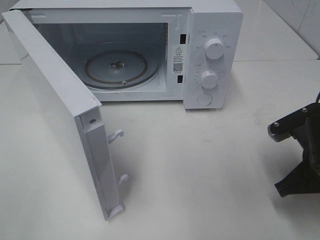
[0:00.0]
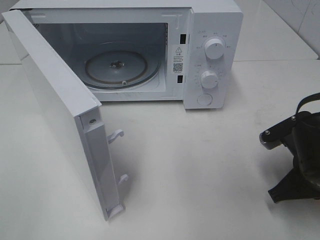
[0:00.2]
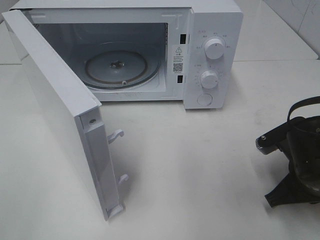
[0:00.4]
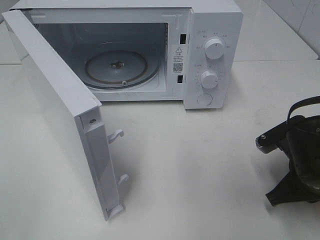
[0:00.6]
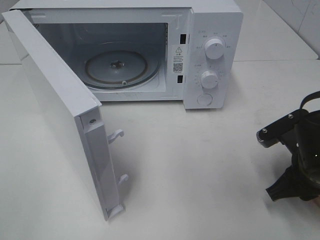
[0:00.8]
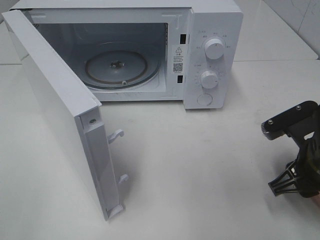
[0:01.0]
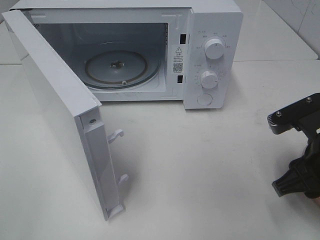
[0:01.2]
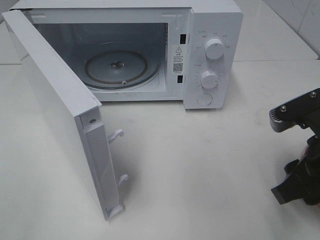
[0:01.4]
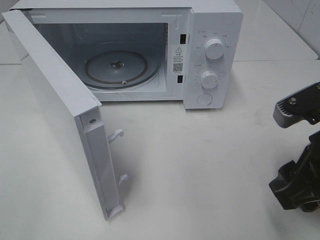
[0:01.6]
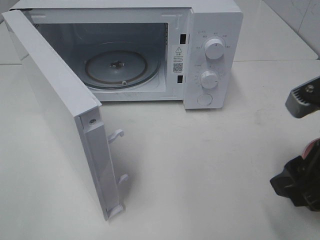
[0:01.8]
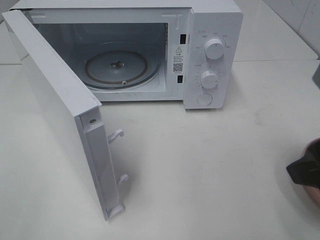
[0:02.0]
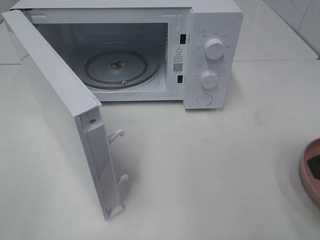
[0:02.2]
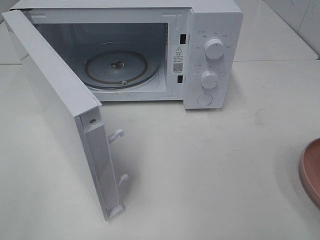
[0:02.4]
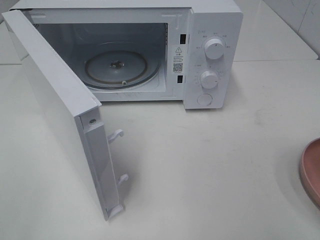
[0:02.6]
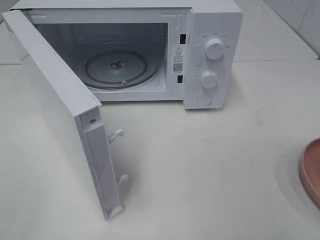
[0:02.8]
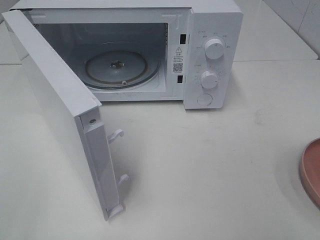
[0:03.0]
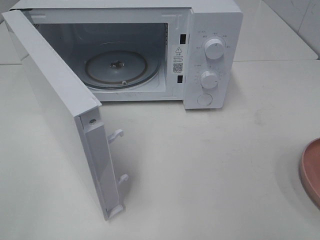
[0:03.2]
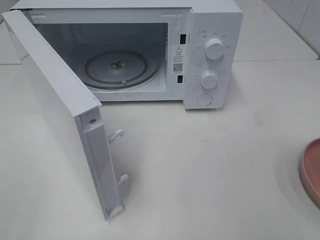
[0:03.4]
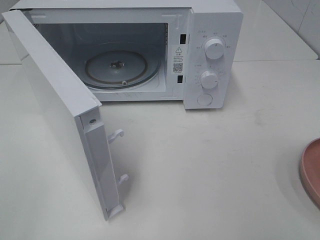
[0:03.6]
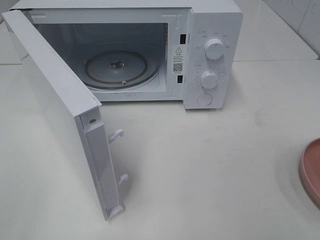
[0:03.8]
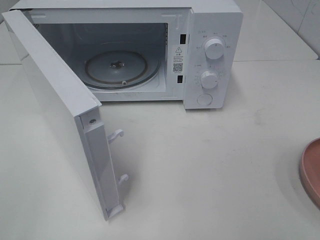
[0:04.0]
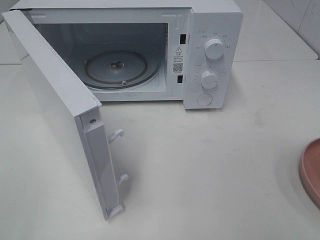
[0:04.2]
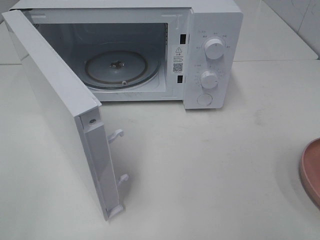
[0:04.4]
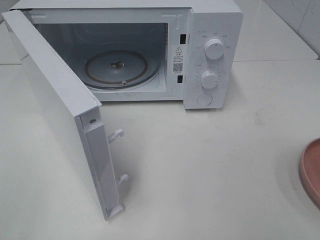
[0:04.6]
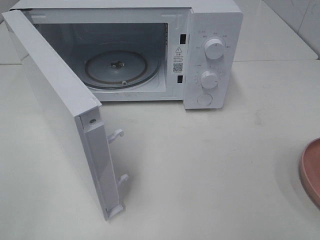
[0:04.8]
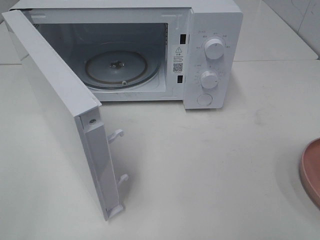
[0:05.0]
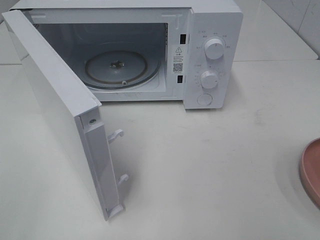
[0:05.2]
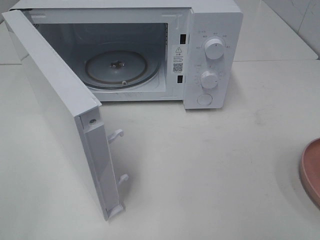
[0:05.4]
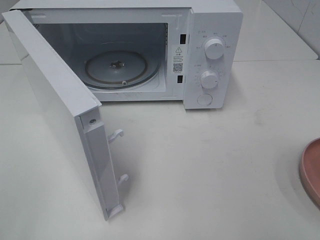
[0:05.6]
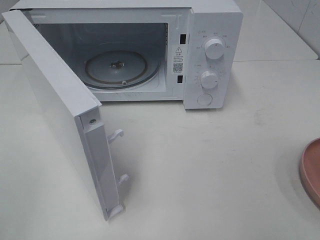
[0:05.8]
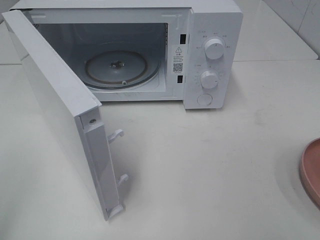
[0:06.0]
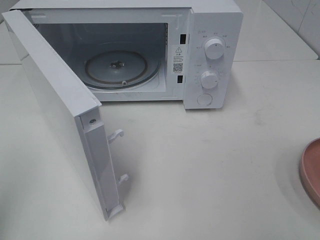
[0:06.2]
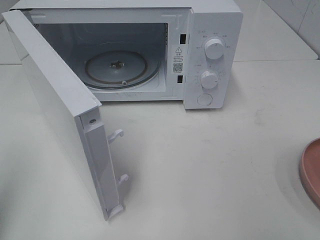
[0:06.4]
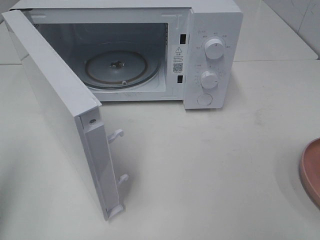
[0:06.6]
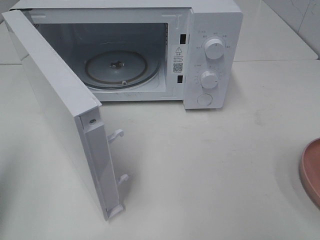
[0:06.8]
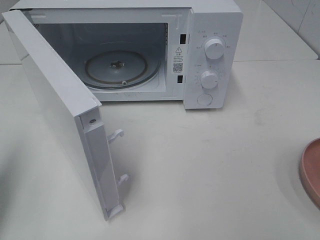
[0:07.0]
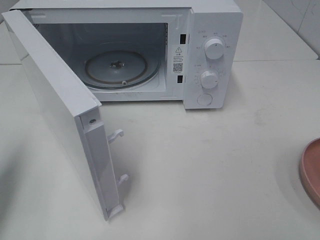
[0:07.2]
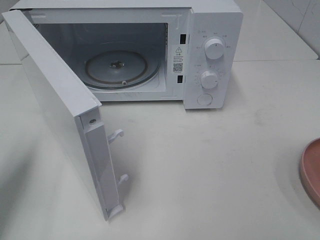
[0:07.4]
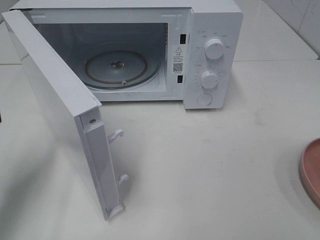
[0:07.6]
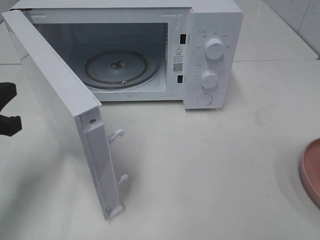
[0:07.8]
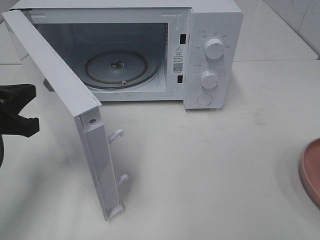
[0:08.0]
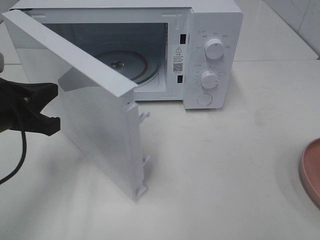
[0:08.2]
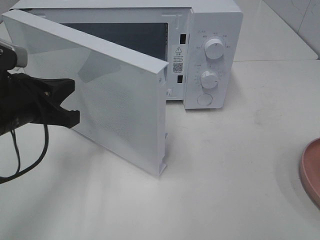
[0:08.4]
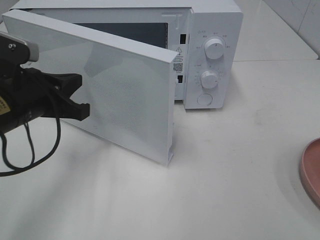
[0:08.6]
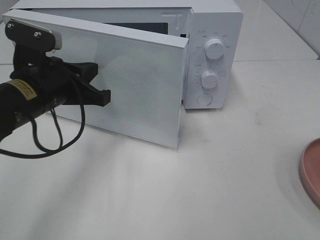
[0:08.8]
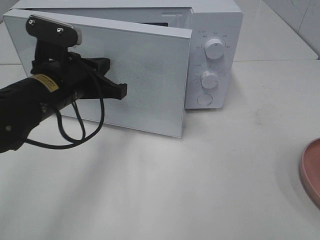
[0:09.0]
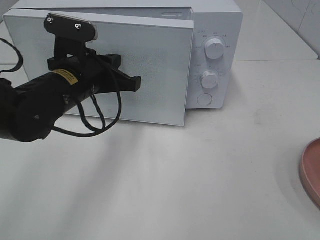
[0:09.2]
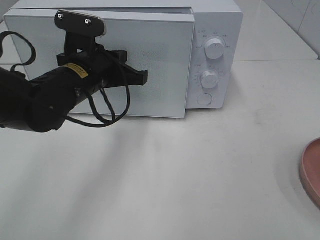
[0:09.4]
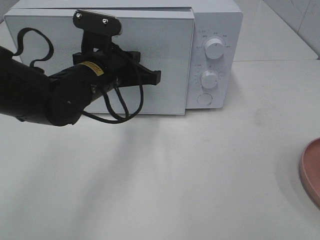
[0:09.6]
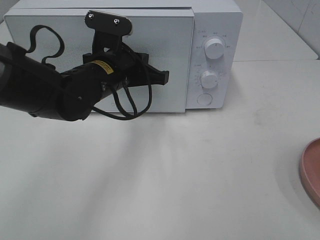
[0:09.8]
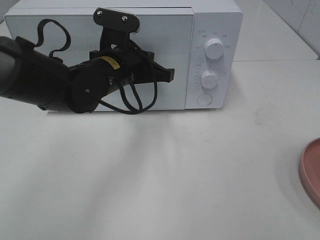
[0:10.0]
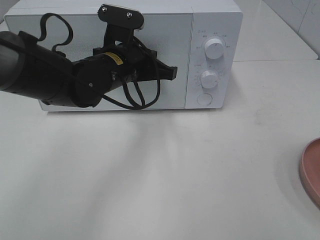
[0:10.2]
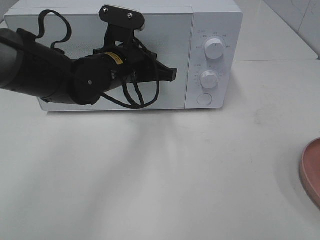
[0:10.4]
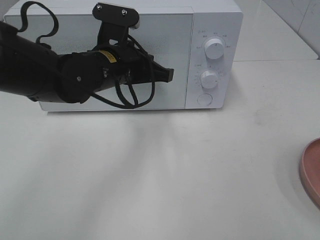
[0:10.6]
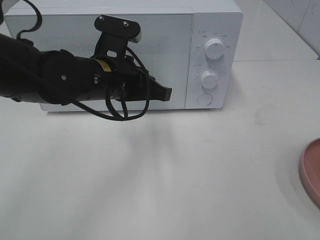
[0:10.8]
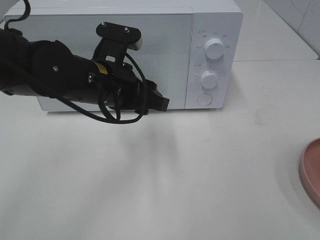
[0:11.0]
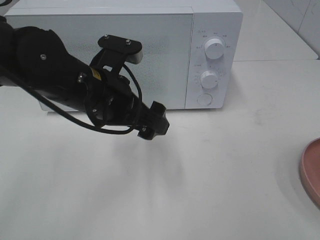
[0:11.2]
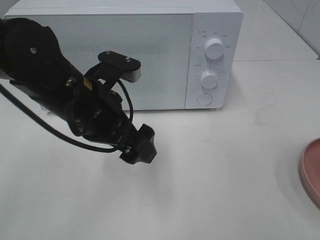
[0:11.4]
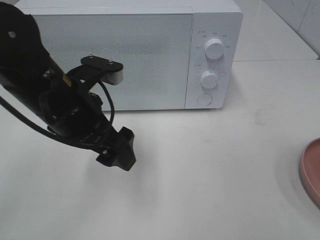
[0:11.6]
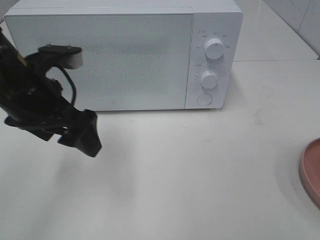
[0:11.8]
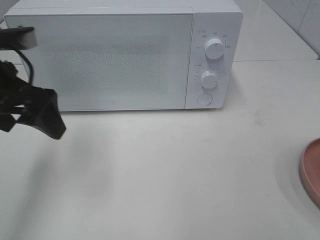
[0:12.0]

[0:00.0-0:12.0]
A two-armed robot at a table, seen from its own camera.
Task of the whole recording: Heat the burger.
Step, 1.2 to 11.0 s: Left hand: close the microwave door.
0.0 to 1.6 s: The right gripper heads upward, covering about 10 cm, and opens its fingers.
1.6 to 3.0 s: The right gripper moves backward, upward and to the right, approximately 15 cm.
6.0 to 7.6 s: The left gripper moves forward and downward, some 20 cm.
7.6 to 9.0 s: The left gripper travels to the right and forward by about 15 cm.
9.0 to 10.4 s: The left gripper moves to the right and forward, roughly 10 cm.
10.4 to 12.0 s: The left gripper goes roughly 20 cm to the left, backward and upward, and opens up.

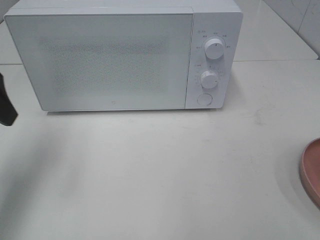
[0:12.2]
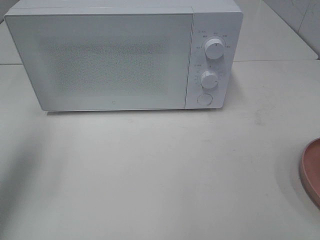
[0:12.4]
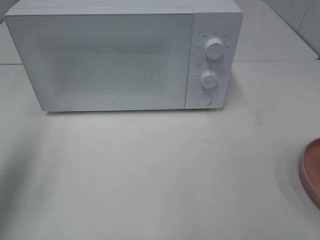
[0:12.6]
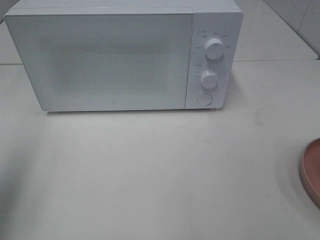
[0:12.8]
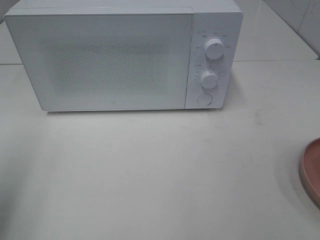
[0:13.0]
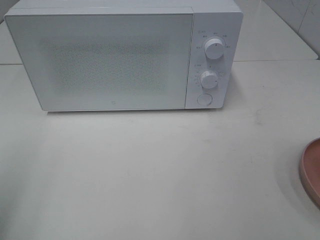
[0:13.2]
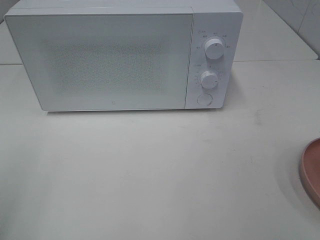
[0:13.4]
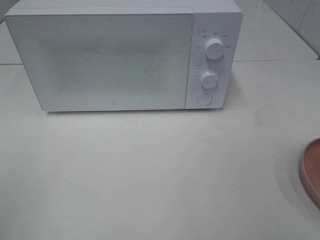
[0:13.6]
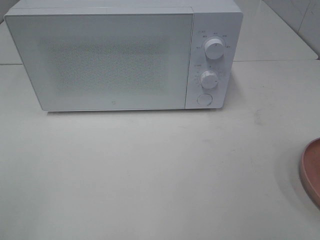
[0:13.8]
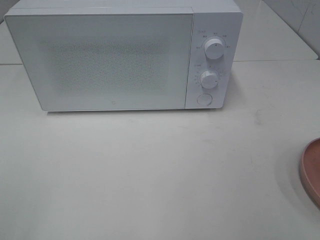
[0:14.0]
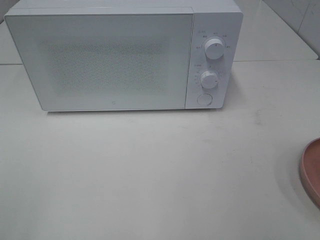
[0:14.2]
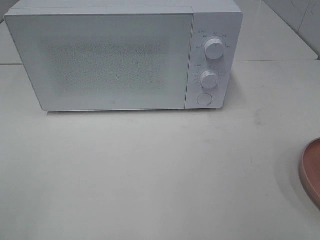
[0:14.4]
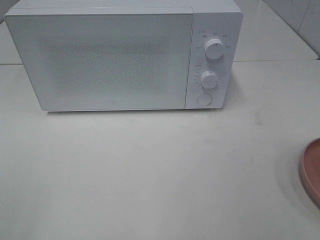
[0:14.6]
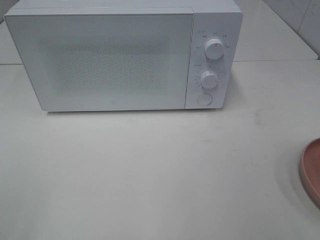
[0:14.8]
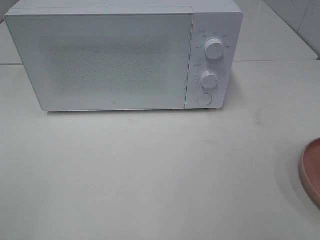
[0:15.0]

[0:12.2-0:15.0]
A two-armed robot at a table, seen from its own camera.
Task of the whole recording: Heat the burger.
12.2 to 13.6 s: The left gripper heads backward, covering roughly 20 cm.

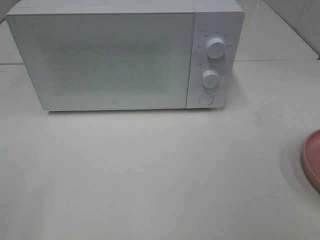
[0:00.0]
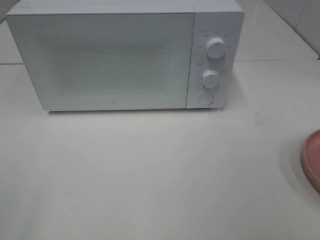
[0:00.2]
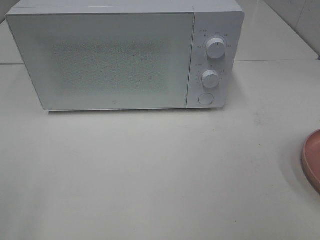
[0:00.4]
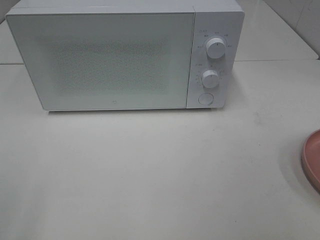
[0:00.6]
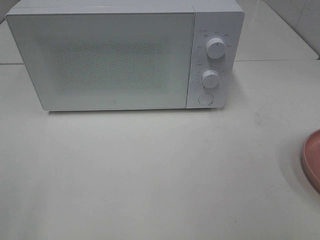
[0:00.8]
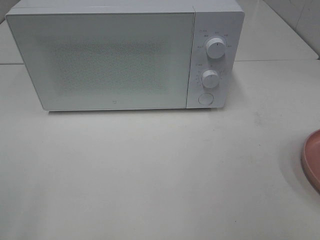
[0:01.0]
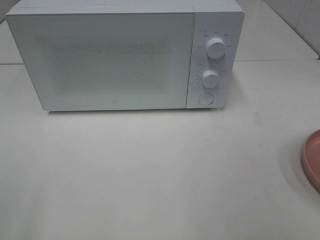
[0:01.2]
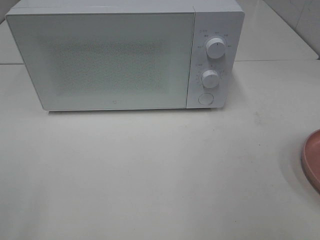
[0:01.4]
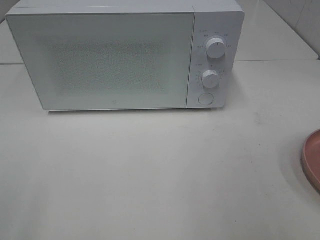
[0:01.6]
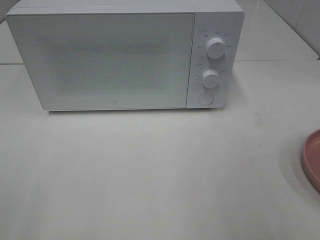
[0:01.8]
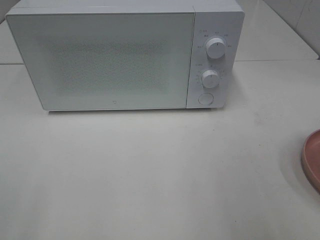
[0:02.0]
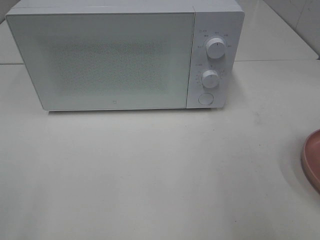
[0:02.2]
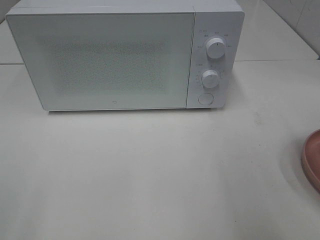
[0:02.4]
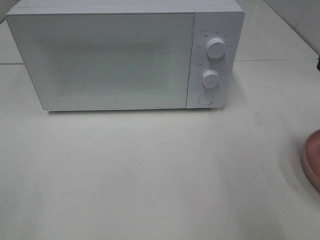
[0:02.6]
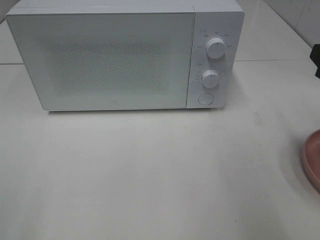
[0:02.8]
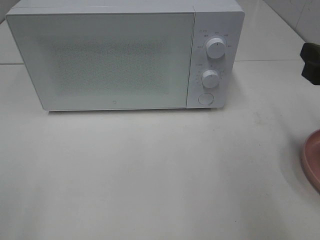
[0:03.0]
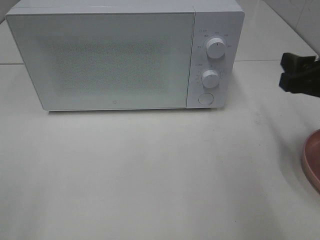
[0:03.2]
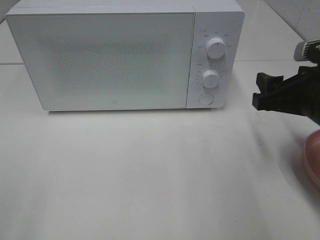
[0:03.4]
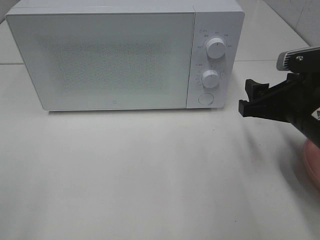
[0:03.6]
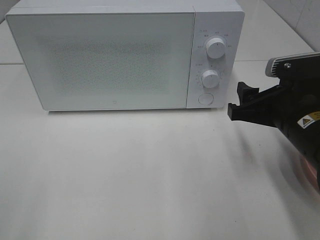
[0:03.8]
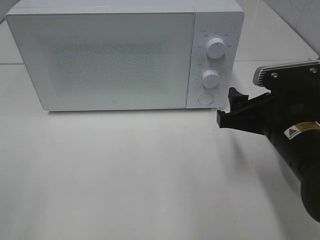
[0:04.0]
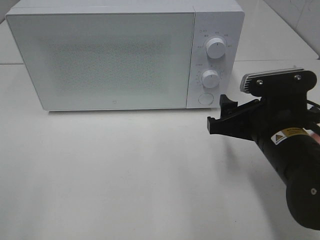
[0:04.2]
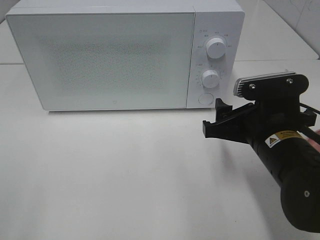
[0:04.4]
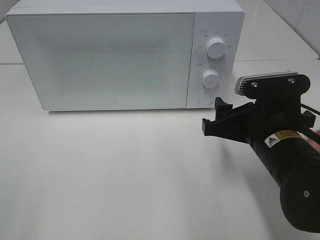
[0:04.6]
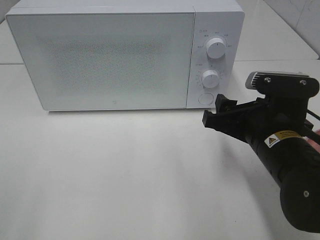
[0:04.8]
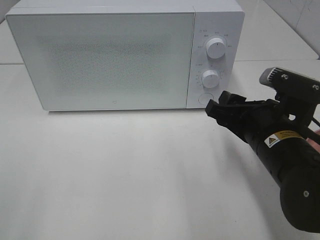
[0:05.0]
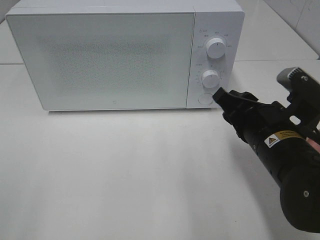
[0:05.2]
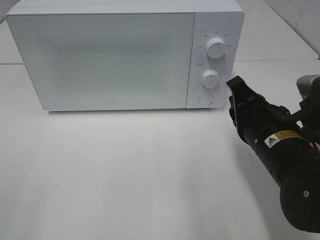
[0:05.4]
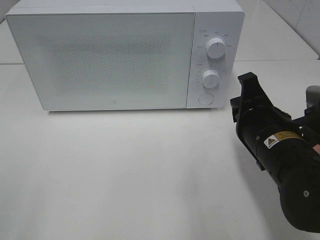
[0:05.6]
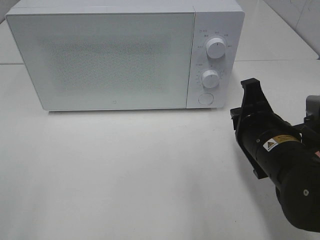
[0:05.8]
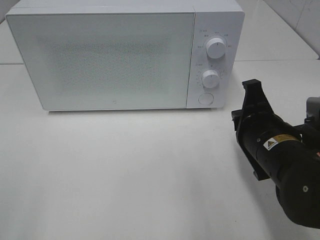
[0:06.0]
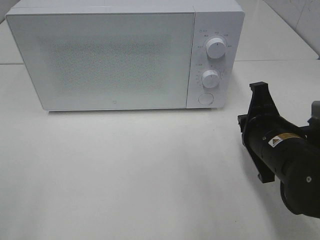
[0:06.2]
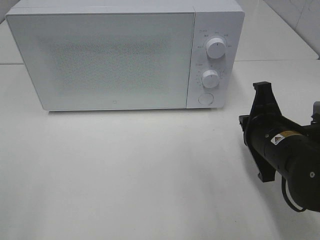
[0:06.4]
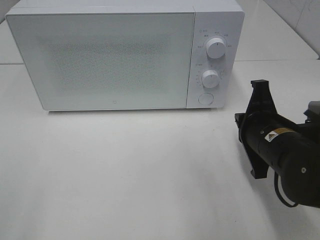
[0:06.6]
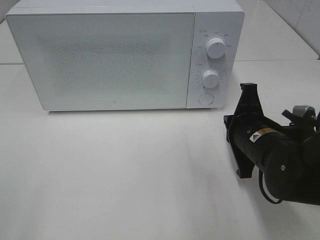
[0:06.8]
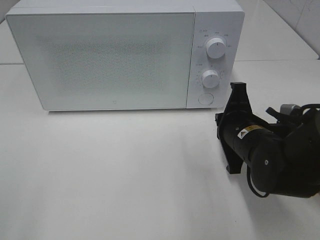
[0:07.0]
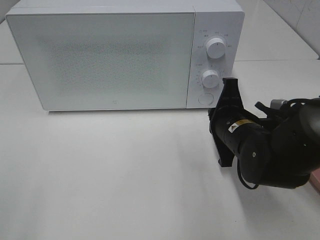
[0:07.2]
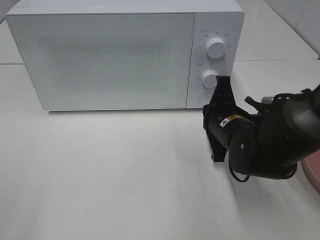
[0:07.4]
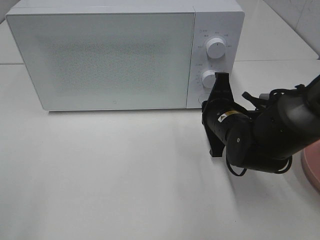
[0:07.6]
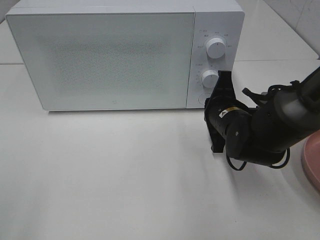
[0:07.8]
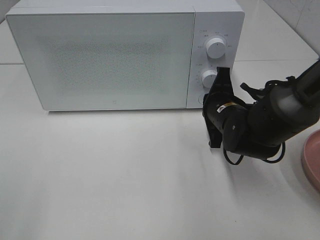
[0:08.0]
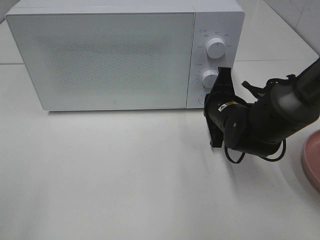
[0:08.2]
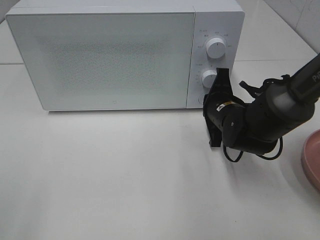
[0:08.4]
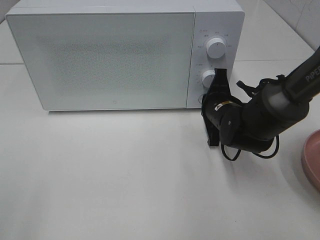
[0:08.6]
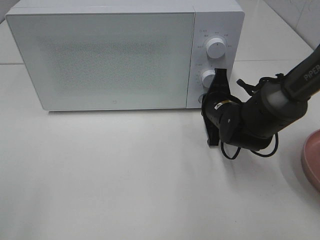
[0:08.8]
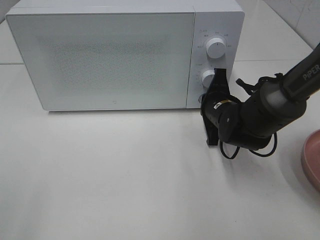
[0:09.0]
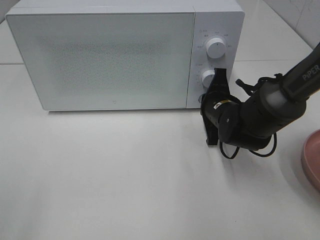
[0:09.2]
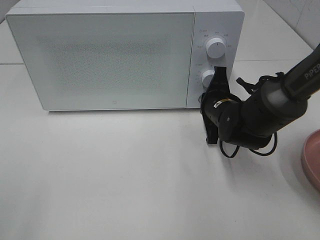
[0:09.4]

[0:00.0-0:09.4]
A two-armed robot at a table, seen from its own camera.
Task of the whole recording: Heat the burger.
1.6 to 3.2 s: The right gripper goes some 20 cm forward and downward.
3.2 to 4.8 s: The right gripper moves to the left and downward, approximately 10 cm.
4.8 to 6.2 s: The right gripper closes.
6.2 to 7.8 s: The right gripper goes roughly 10 cm forward.
7.8 to 9.4 s: The grippers stay close to where they were, moving slightly.
